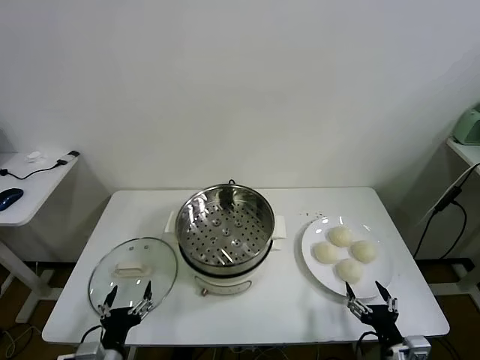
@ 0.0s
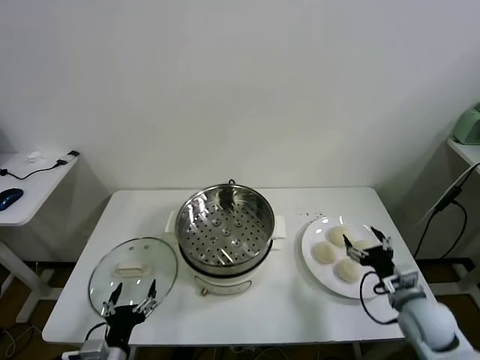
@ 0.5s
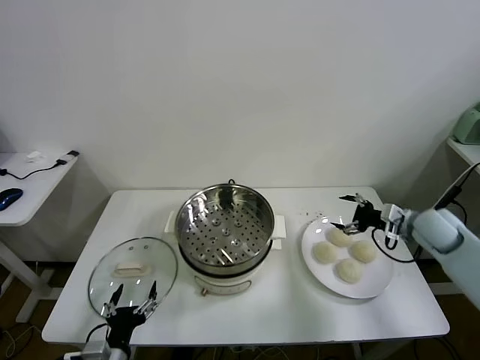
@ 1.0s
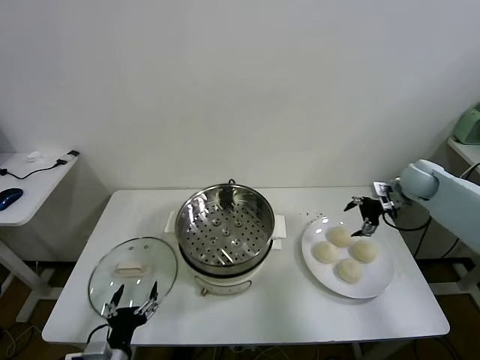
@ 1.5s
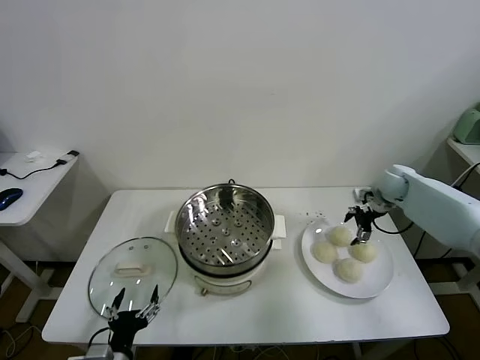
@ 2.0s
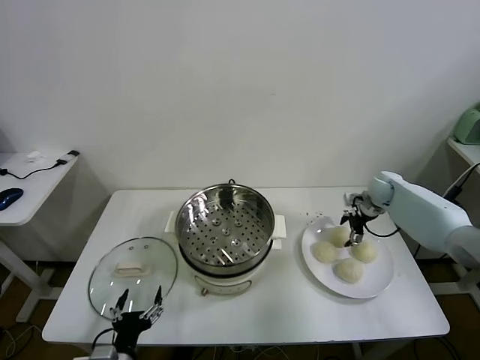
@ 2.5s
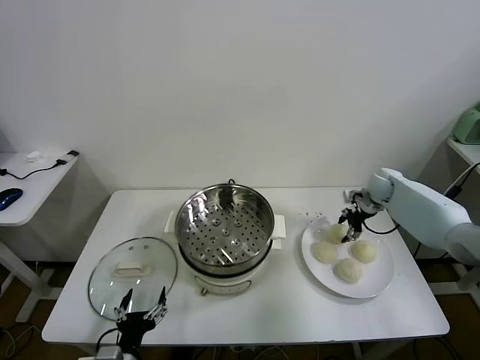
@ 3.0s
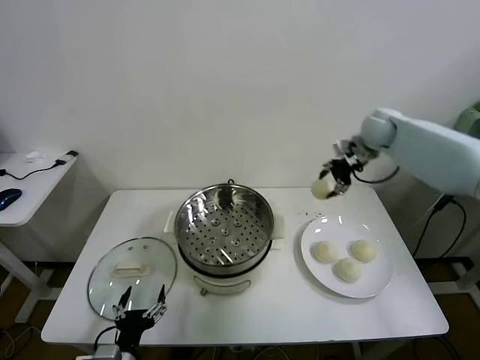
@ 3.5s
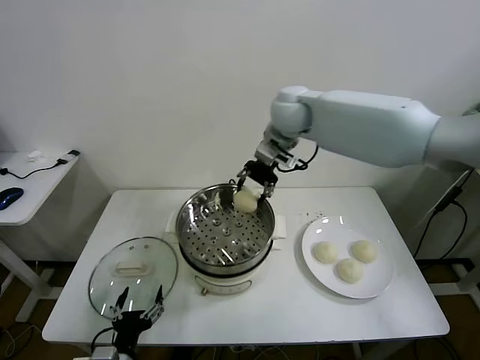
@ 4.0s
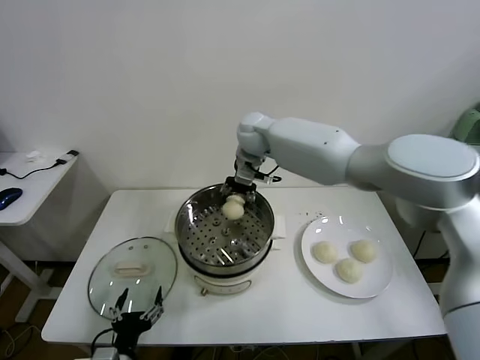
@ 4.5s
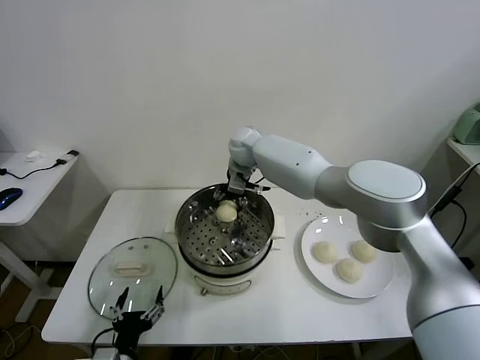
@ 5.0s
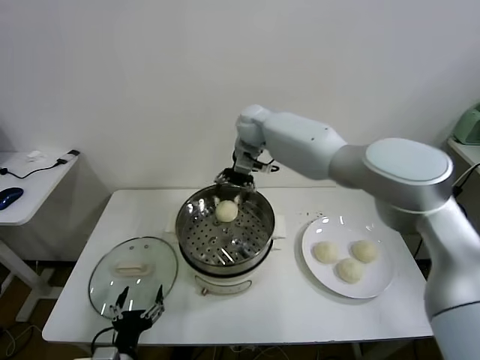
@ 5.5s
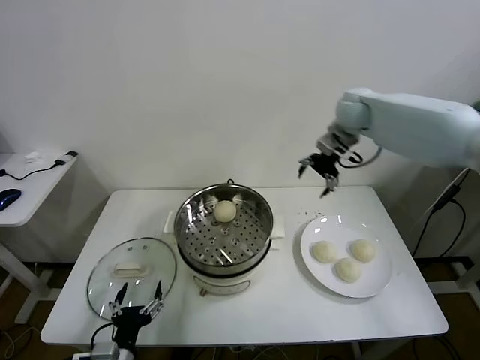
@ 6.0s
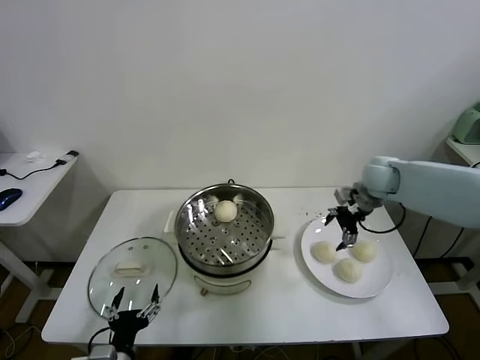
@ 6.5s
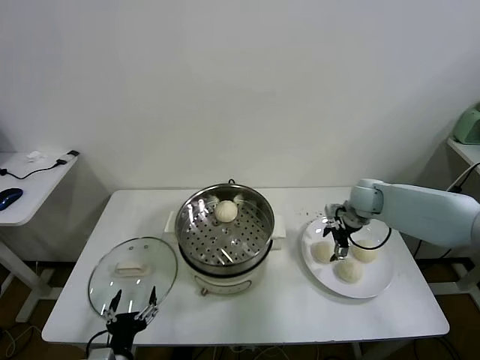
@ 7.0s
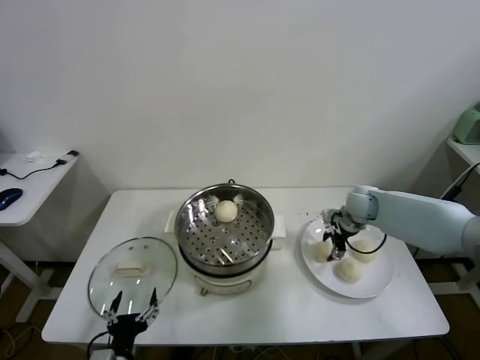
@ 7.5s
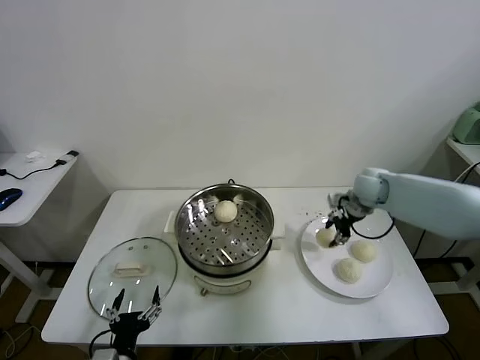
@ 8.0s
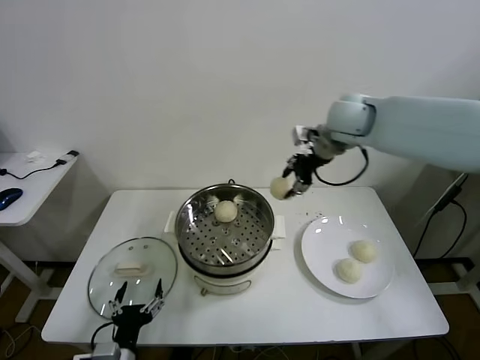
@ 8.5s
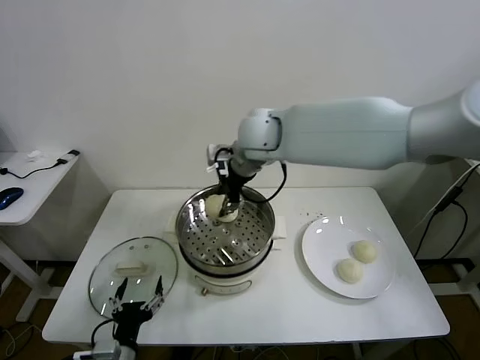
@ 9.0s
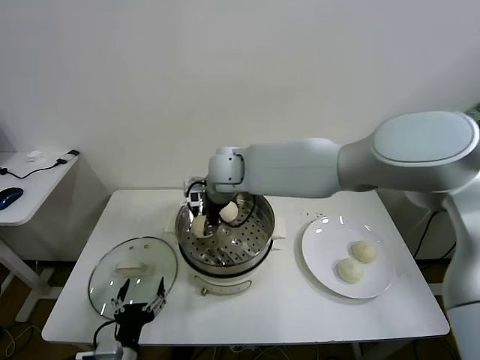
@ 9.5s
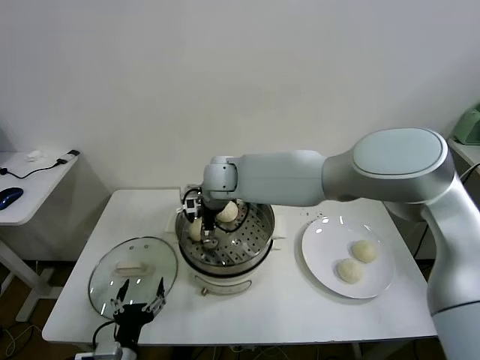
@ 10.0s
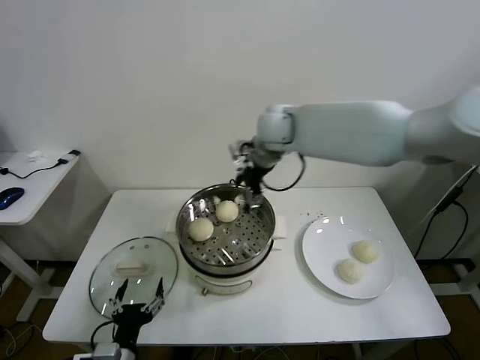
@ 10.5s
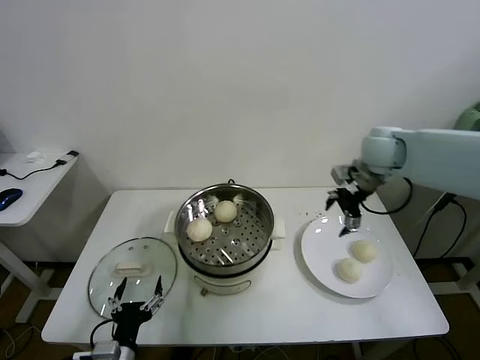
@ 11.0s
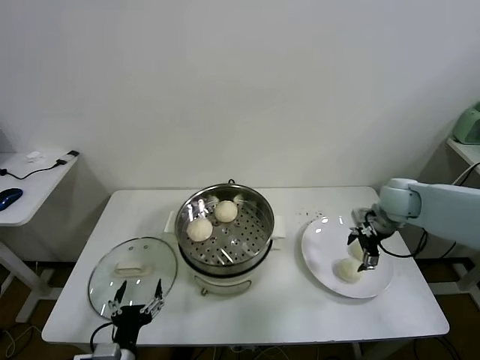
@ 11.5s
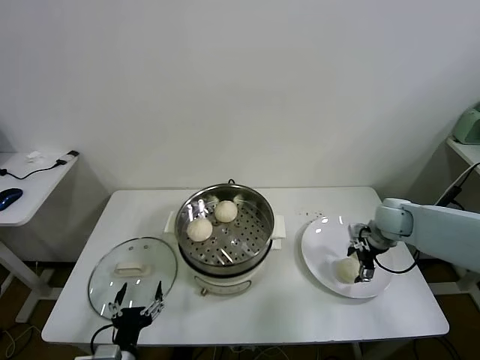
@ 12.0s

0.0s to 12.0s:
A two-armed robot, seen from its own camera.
Task of the whole recording: take steamed baozi put them in steamer.
Step, 0.0s to 2.5s: Grasp the baozi in the plate with right gripper.
Step, 3.5s to 5.0s: Place the baozi on the steamer with right gripper.
Step, 5.5s to 7.5s: Grasp the baozi in the plate with right gripper.
Step, 8.0s to 10.0s: Place the baozi on the steamer with right gripper.
2.0s to 4.0s: The right gripper travels to the left and upward by some 40 cm, and closes.
4.0s to 6.0s: The right gripper moves to the right, roughly 20 cm, and opens up.
6.0s to 8.0s: The right gripper travels downward by about 15 cm, and closes.
8.0s to 10.0s: The right gripper heads to the left, covering roughly 35 cm, and opens up.
10.0s to 12.0s: The right gripper is displaced to the right by roughly 40 cm.

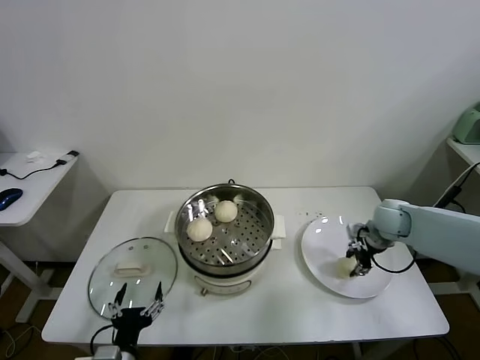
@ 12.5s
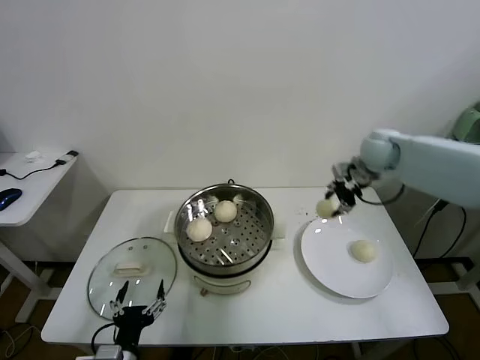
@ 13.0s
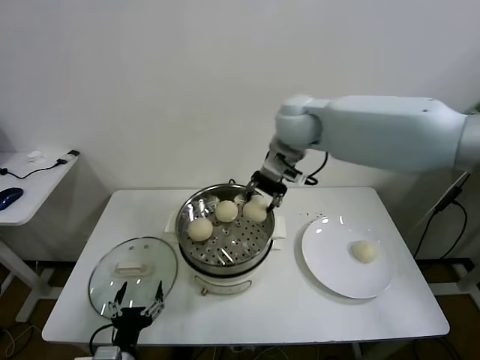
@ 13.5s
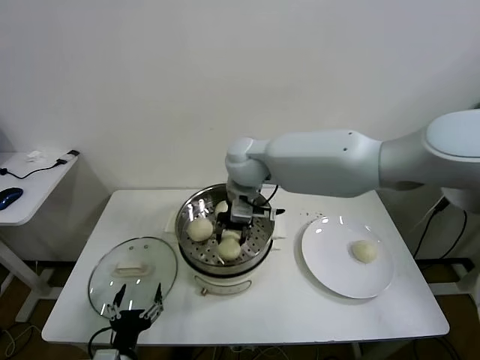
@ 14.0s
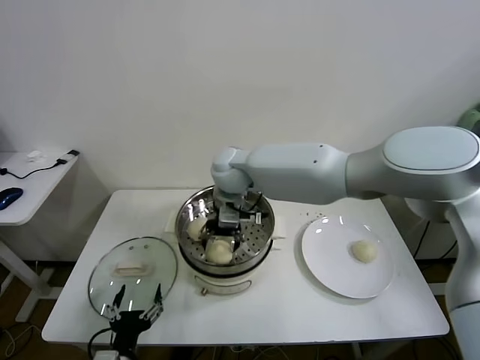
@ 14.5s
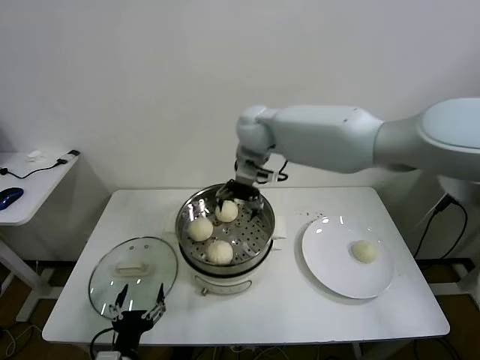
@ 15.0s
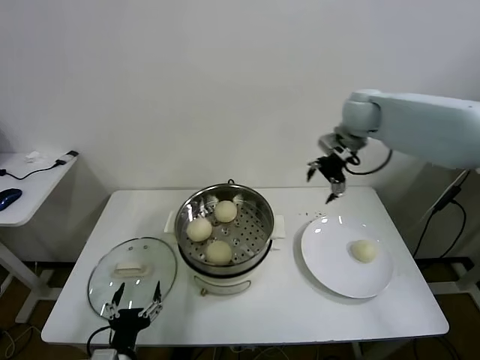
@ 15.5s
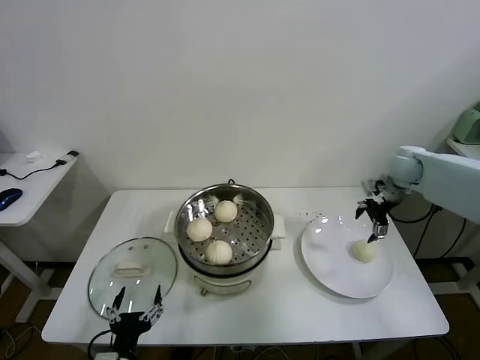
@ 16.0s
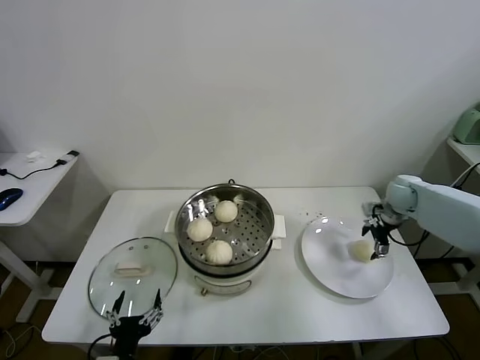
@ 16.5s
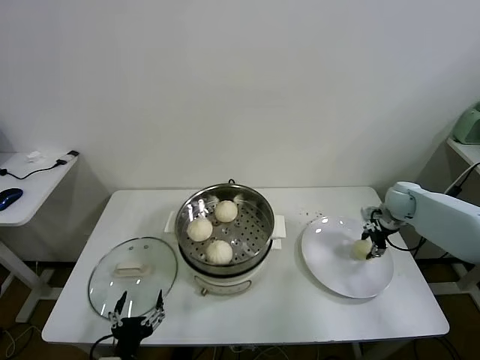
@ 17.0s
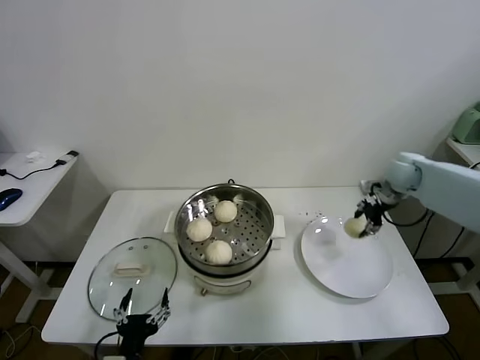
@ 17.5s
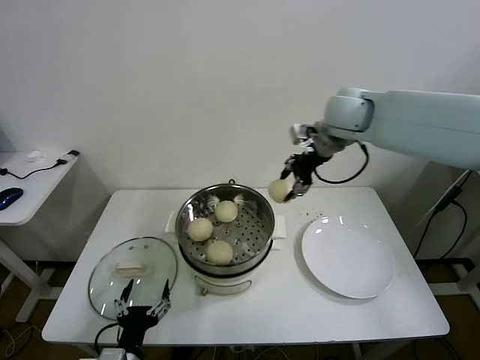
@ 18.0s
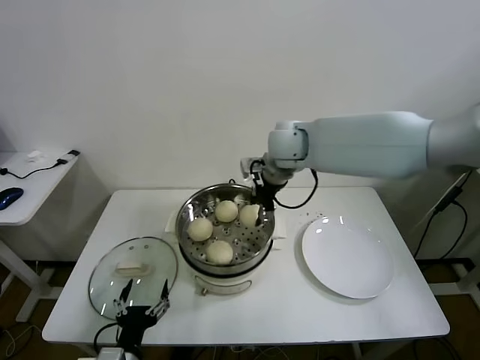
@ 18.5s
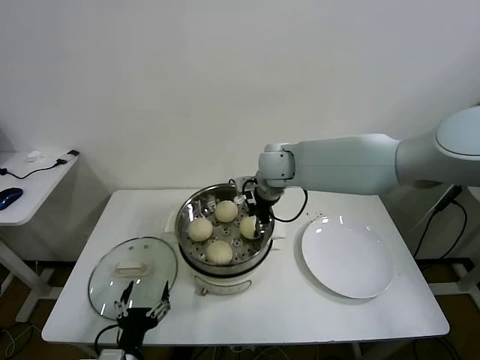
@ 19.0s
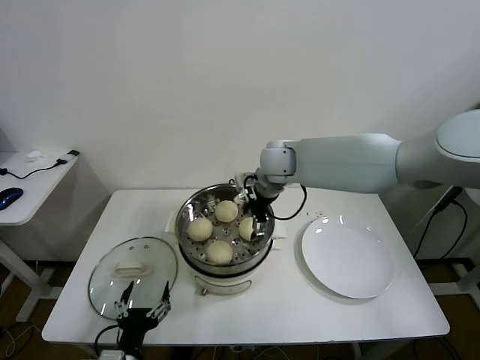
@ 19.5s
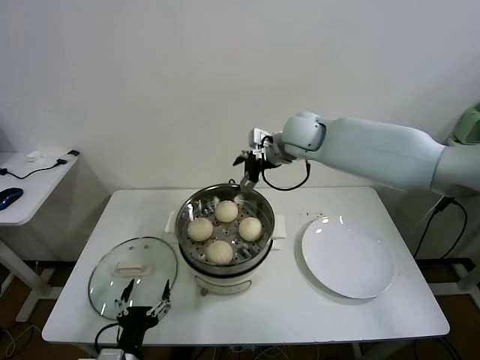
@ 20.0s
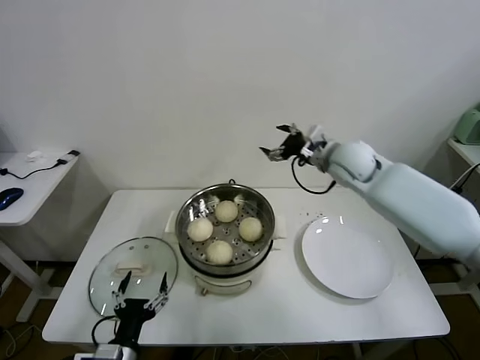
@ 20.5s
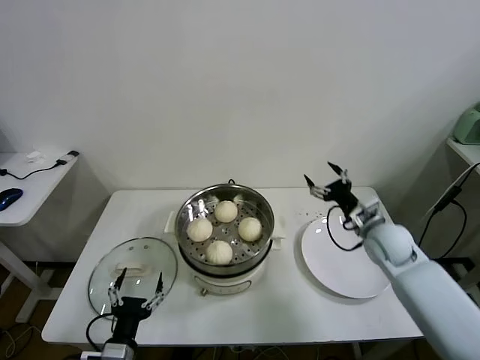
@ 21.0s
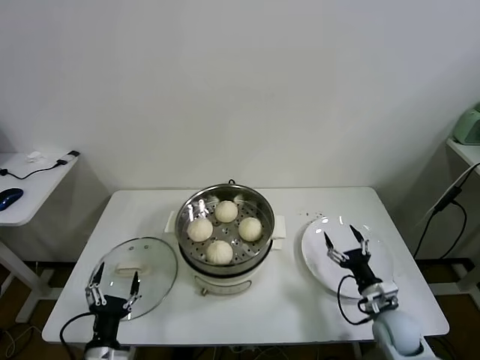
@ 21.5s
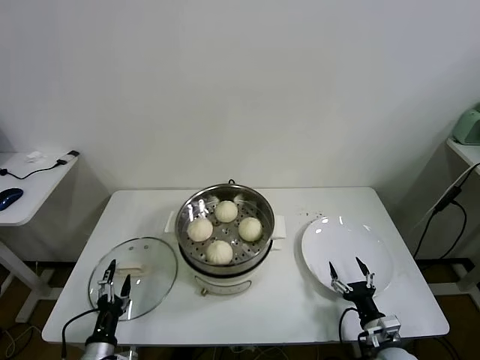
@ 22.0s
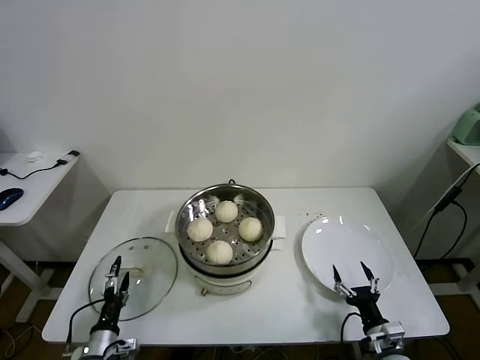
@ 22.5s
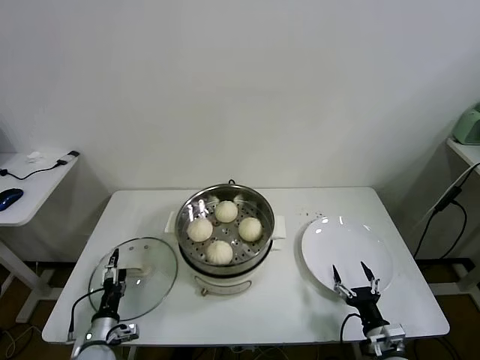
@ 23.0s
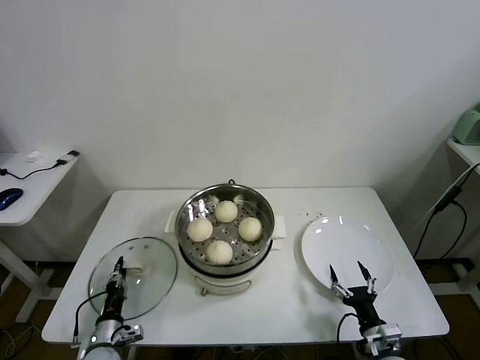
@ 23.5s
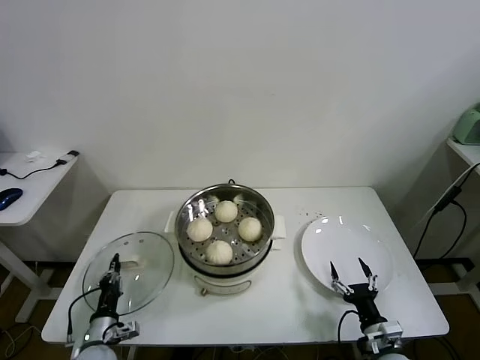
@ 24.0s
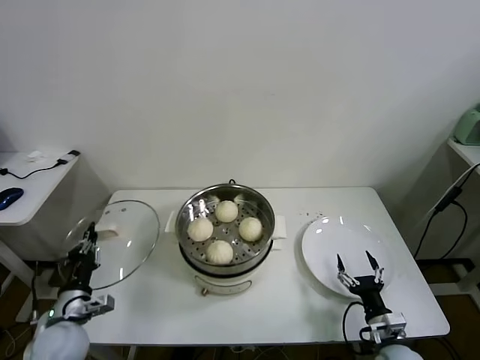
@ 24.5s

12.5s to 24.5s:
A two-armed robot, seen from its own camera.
Task of the whole recording: take steamed baozi put them in steamer.
Step, 12.5s to 14.5s: Place the baozi on the steamer with right gripper.
Step, 15.0s to 17.0s: Grasp the baozi in the plate with right gripper.
Step, 17.5s to 23.5s: Grasp the pot lid with left gripper.
12.5s to 14.5s: The right gripper shifts about 40 cm to the left, and opens its fingers.
14.5s to 16.5s: The right gripper travels to the right by approximately 50 cm.
16.5s to 18.5s: The right gripper heads to the left and upward, covering some 35 cm, and closes.
18.5s to 20.5s: The right gripper moves to the right, roughly 15 cm, and opens its fingers.
20.5s to 22.5s: The right gripper goes about 50 cm downward and backward; the left gripper moves downward, to the left and forward, approximately 15 cm.
22.5s to 24.5s: The left gripper goes some 10 cm upward, and closes.

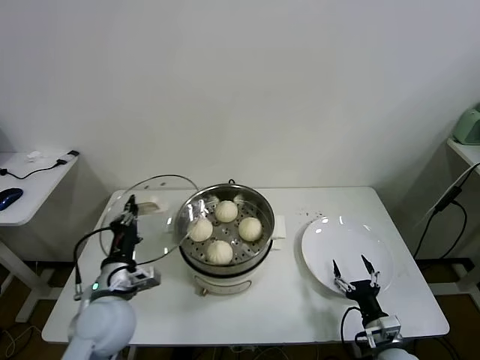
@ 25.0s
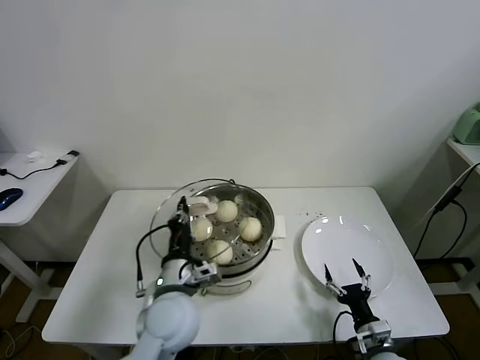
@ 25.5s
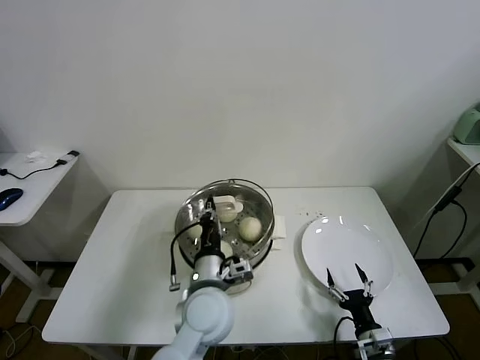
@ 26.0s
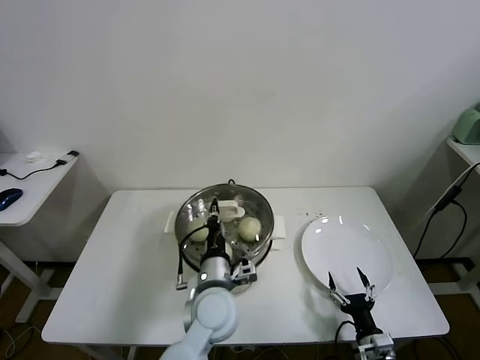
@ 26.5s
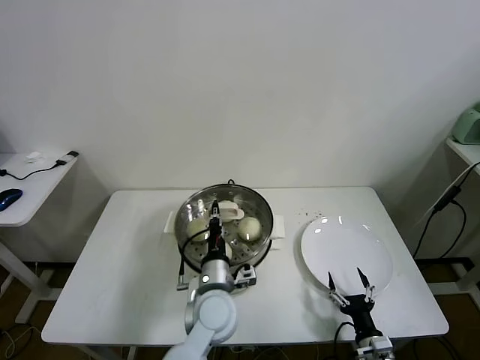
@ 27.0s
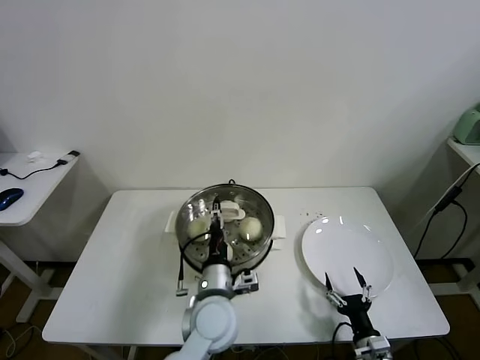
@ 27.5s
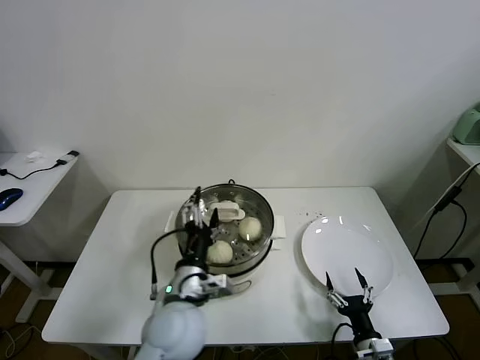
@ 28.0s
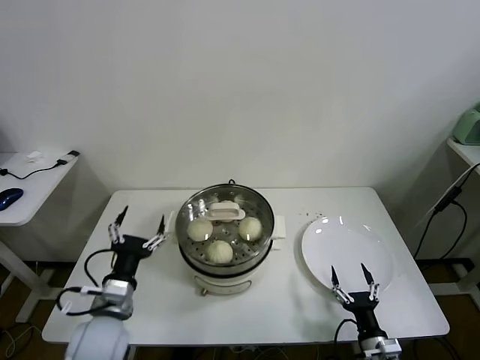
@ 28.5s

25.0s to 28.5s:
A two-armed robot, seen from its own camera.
Task of the whole recording: take steamed baozi put them in steamer.
Step, 25.0s to 27.0s: Place the pot lid on the steamer with left gripper.
25.0s to 27.0s: The left gripper goes some 20 cm to the right.
27.0s to 28.5s: The left gripper goes some 20 cm to the left, and opens its fingers.
